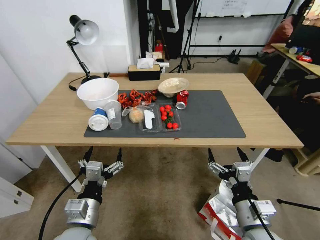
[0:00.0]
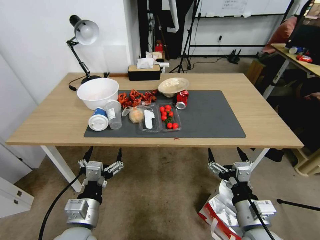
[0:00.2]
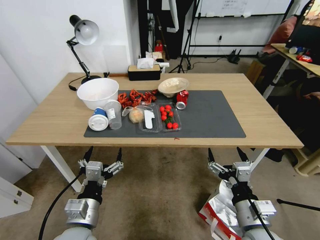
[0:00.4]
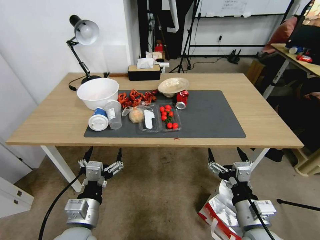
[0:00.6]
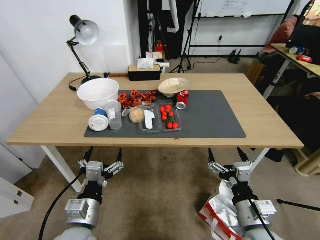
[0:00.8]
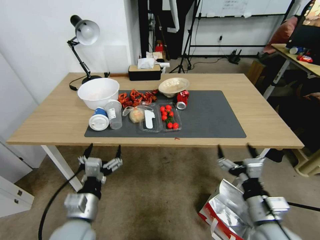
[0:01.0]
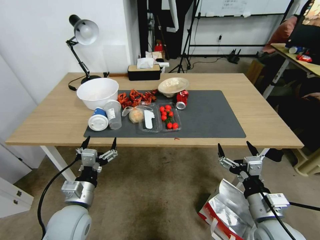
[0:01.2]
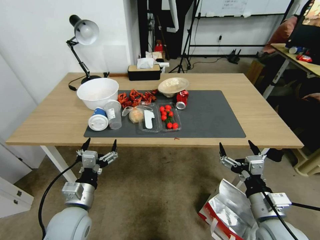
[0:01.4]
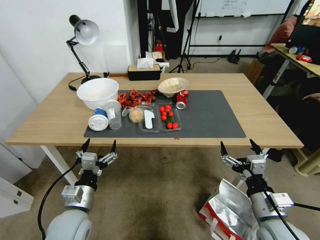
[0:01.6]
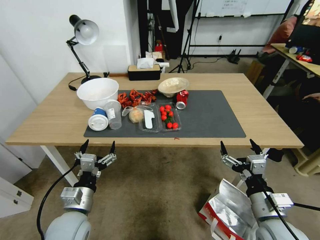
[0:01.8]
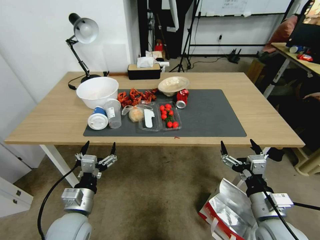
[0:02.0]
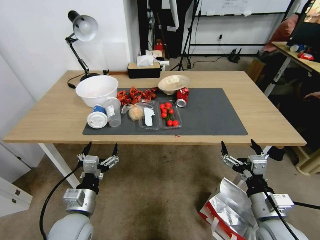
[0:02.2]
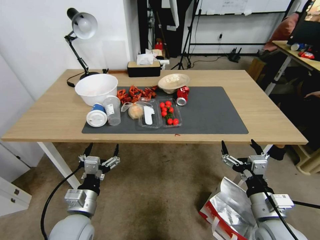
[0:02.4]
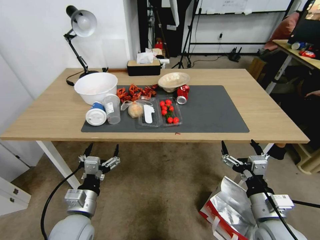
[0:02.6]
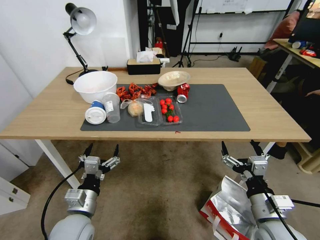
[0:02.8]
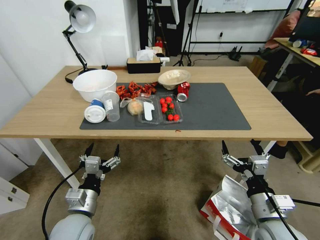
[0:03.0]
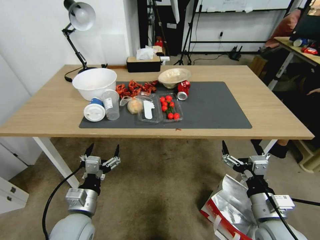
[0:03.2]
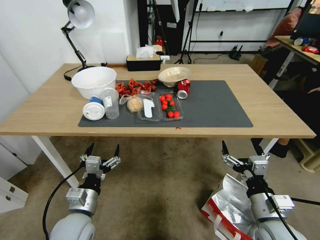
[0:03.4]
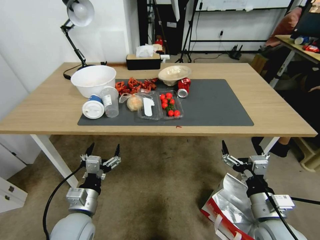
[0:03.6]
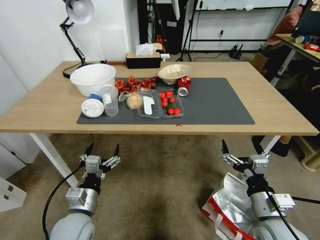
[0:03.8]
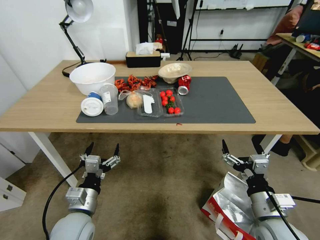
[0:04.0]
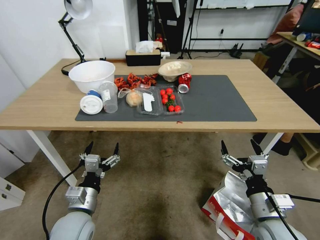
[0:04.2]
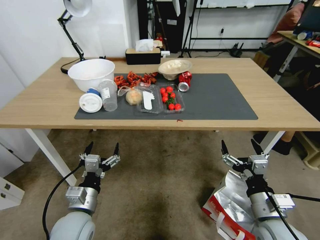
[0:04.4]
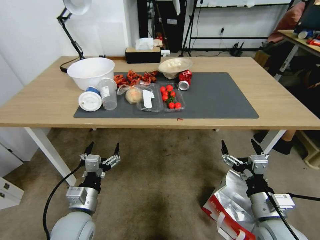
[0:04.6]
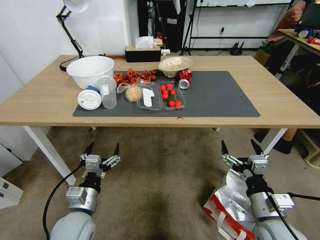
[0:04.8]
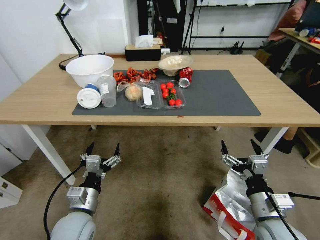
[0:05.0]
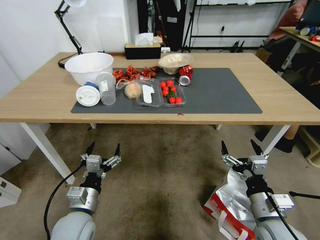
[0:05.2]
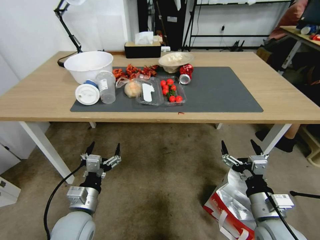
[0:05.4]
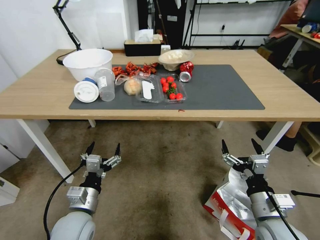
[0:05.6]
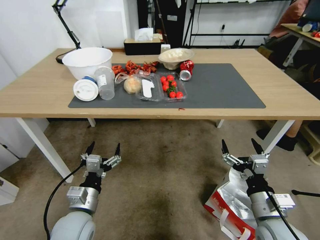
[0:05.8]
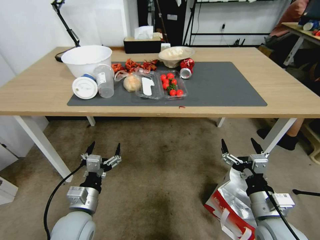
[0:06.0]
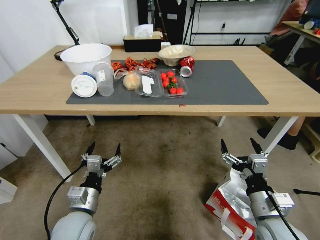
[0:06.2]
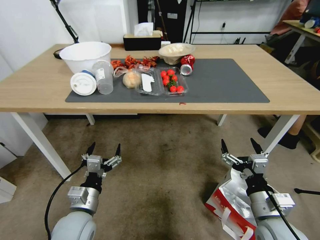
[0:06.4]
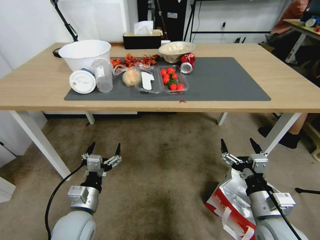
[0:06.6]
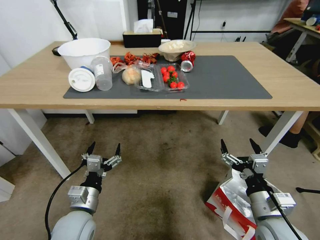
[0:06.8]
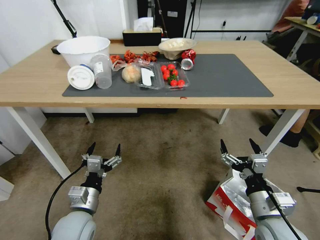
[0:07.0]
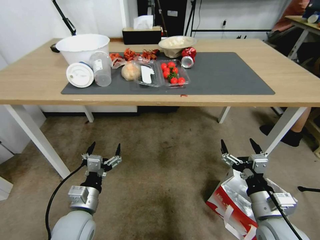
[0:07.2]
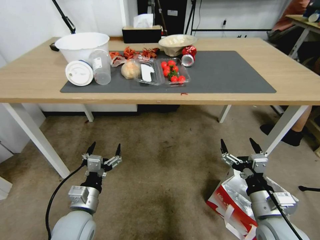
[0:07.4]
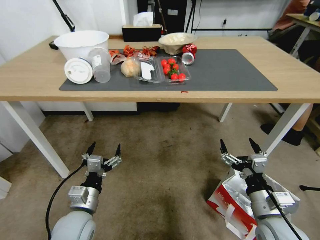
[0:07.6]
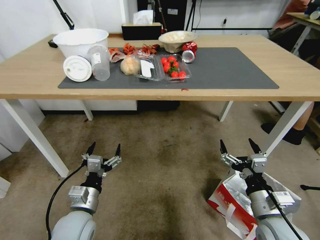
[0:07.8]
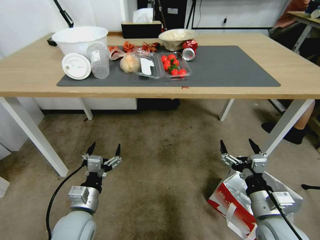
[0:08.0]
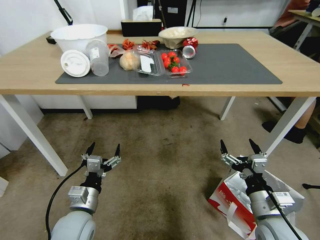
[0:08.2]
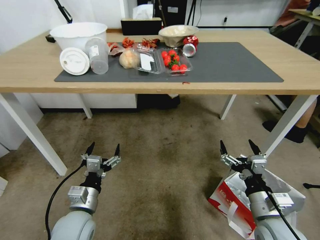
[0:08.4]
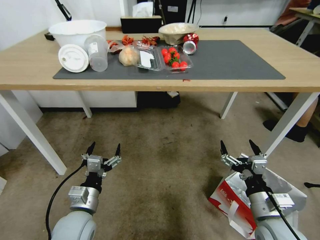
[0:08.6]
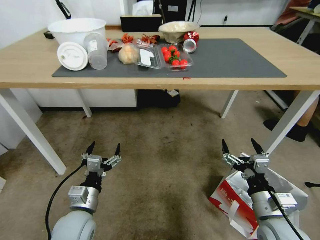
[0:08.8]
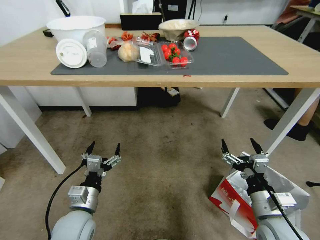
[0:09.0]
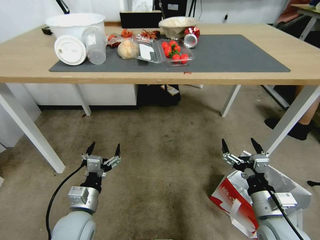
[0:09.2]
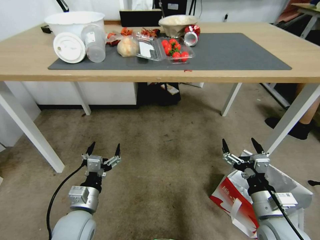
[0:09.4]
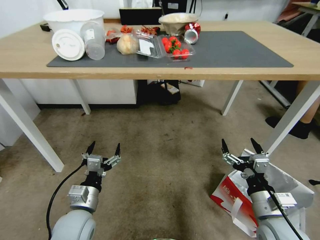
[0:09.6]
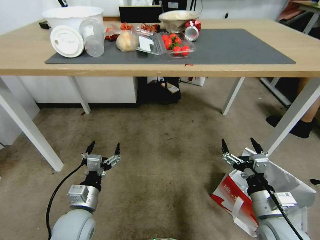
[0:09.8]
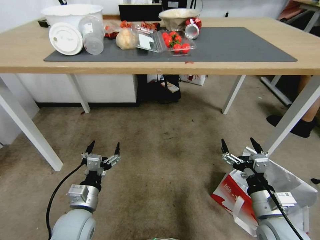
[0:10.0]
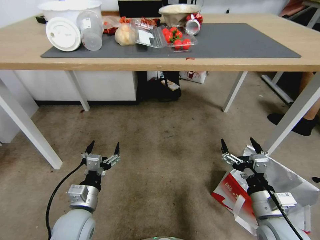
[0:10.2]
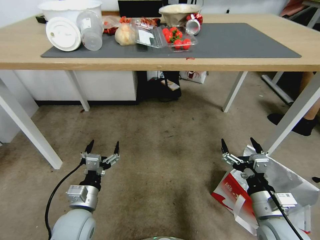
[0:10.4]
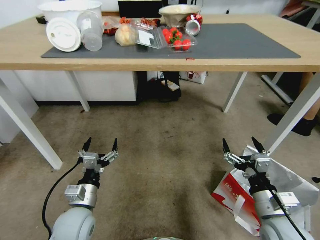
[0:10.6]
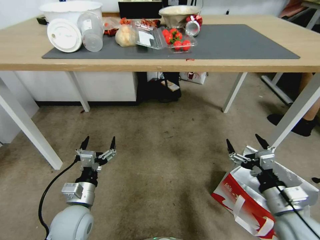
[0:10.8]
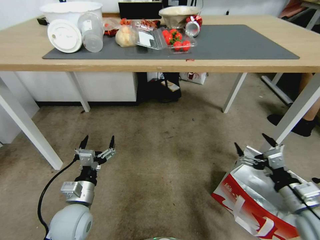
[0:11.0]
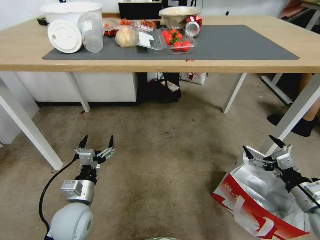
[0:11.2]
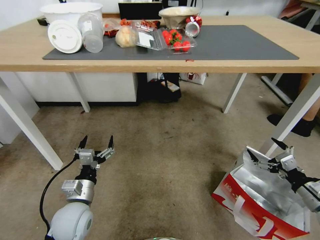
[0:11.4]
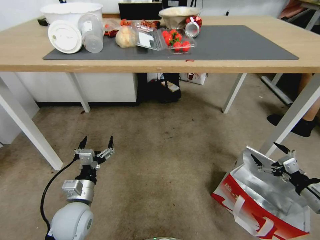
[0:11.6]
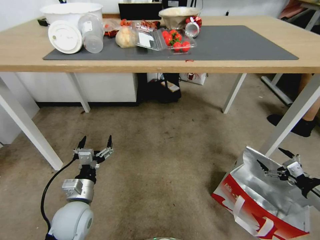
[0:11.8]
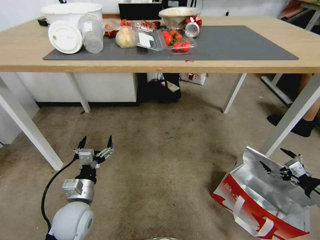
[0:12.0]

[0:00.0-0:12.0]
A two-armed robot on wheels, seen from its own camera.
Task of the whole recording: Pick up the food delivery bag from the floor and place it on the table.
0:10.4 to 0:12.0: The right gripper heads to the right, covering some 25 cm.

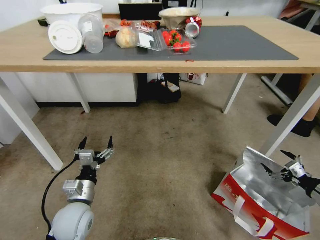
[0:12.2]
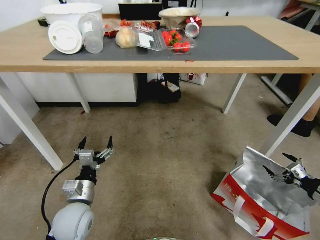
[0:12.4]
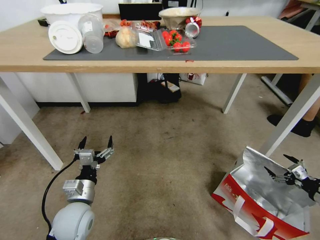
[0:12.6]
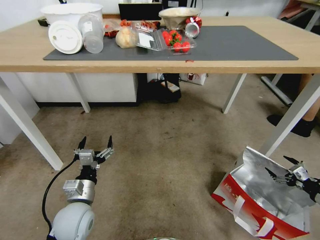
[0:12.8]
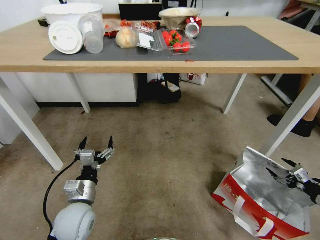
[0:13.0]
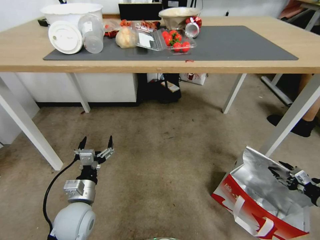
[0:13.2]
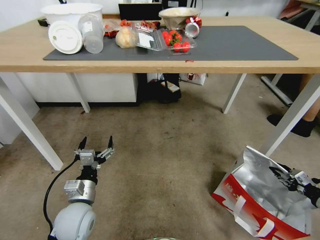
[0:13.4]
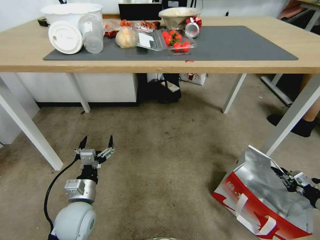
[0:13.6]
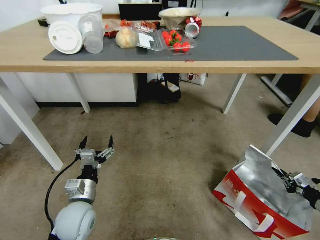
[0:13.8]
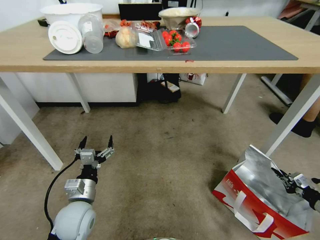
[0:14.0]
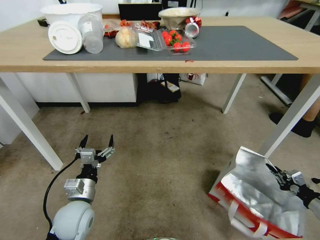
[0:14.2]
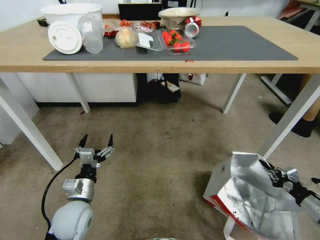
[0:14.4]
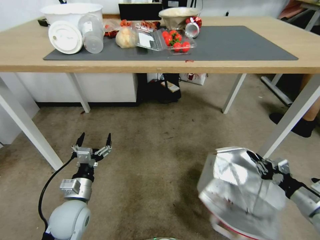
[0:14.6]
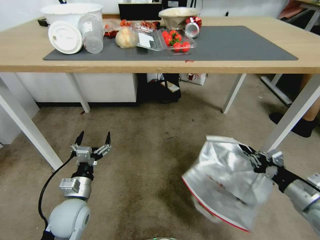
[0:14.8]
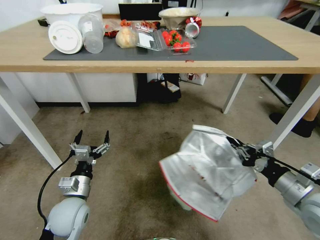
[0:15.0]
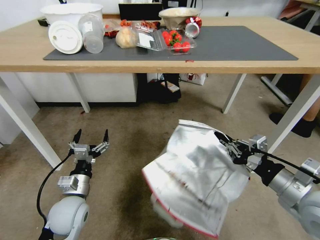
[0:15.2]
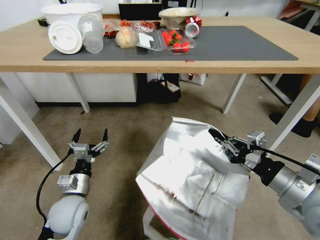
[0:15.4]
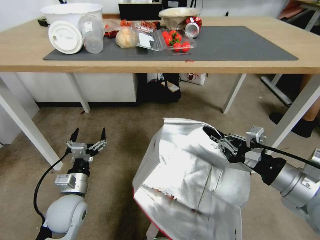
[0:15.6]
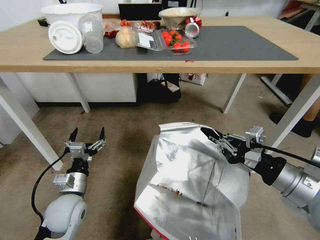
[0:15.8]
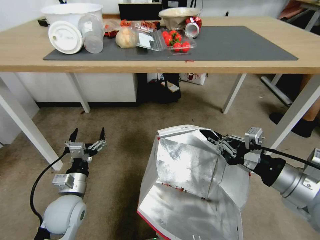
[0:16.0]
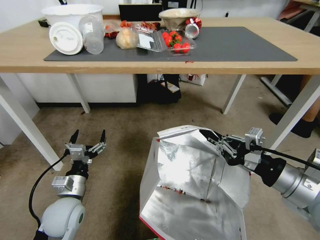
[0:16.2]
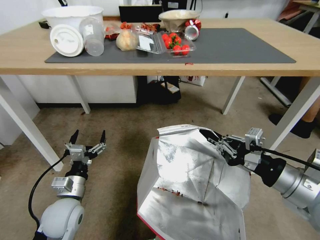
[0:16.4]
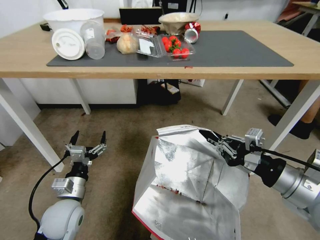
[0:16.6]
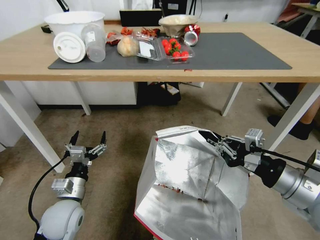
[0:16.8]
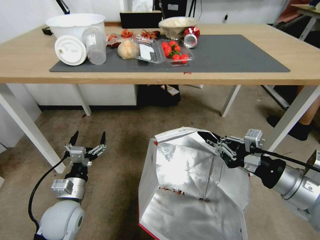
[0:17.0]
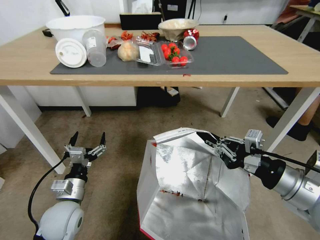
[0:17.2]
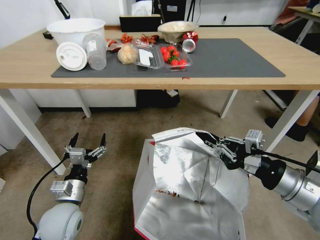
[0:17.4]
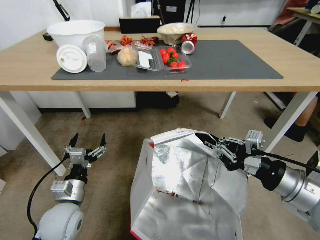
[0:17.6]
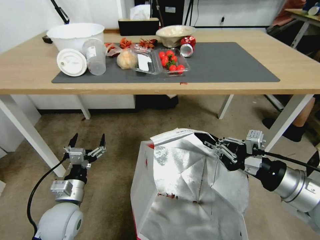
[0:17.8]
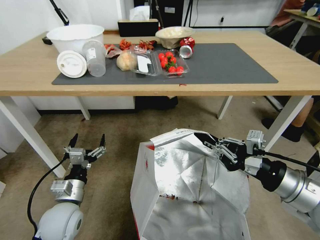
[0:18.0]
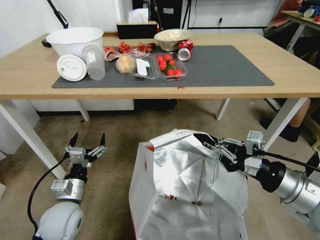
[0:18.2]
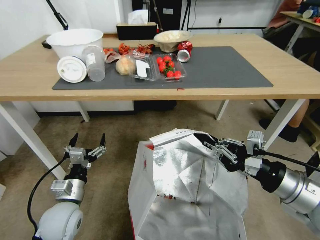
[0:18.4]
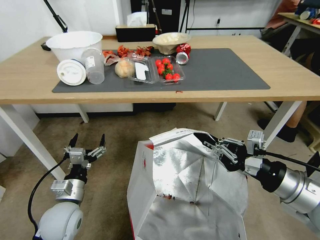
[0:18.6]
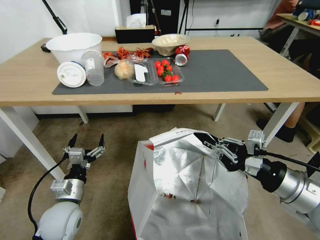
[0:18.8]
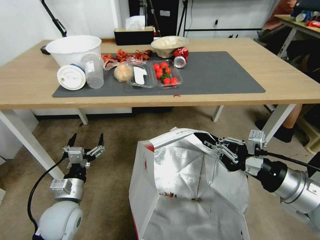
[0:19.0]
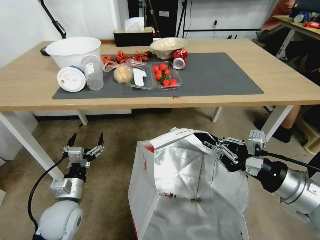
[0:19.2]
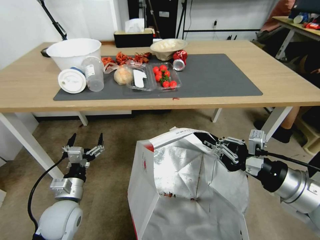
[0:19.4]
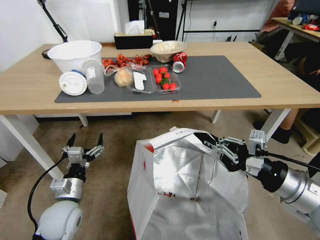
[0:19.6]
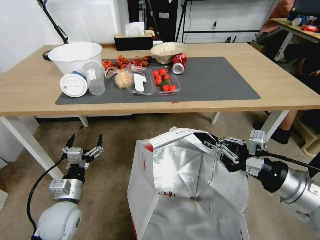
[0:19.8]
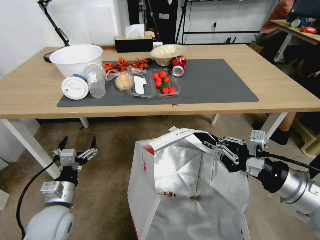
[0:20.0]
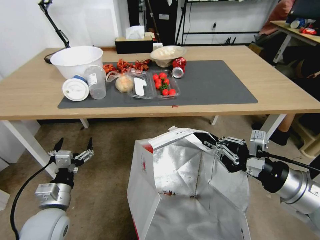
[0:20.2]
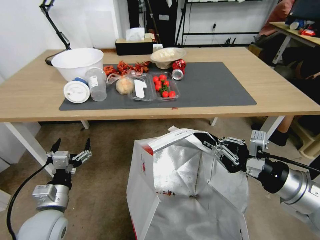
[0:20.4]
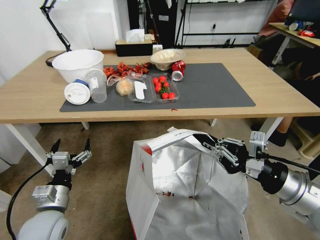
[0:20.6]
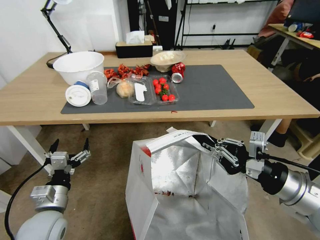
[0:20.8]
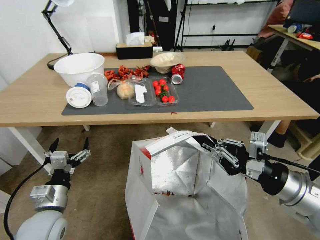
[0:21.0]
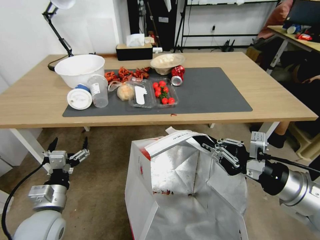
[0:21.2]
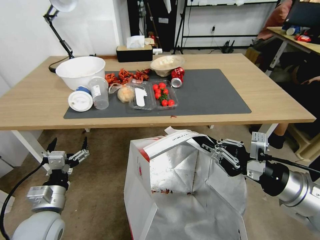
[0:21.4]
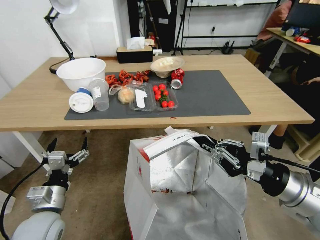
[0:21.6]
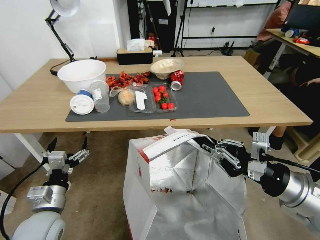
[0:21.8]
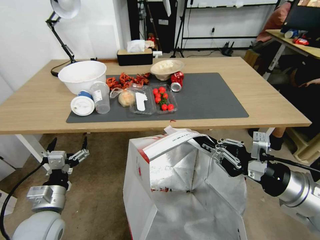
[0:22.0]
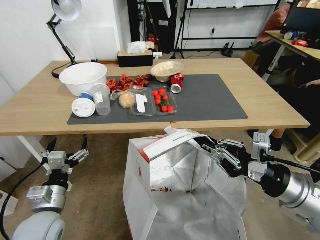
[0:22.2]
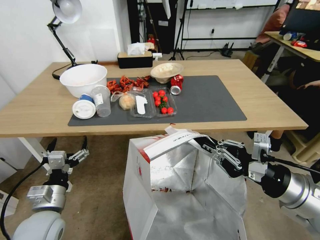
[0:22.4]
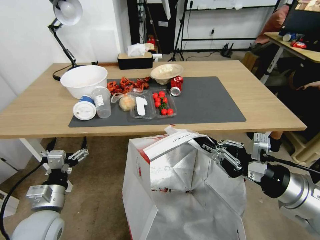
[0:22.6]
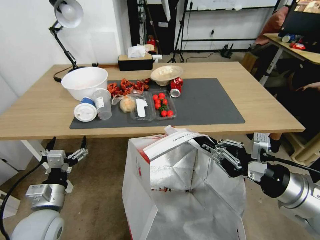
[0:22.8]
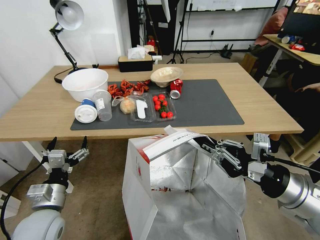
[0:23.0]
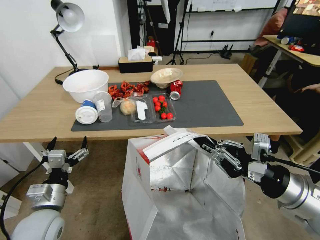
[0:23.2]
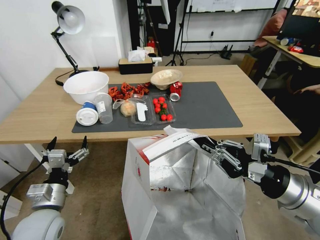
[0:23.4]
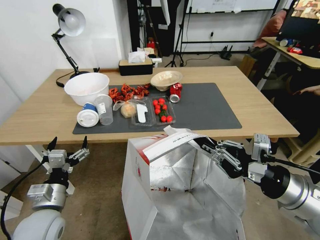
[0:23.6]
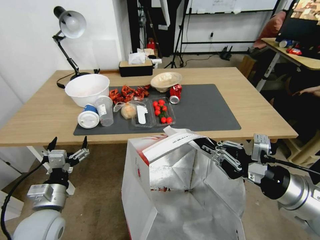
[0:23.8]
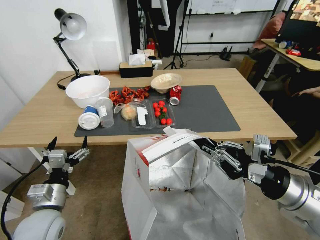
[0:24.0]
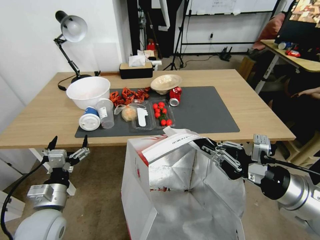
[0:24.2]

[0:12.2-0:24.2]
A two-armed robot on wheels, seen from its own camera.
Task of the whole recording: Pick up the food delivery bag from the floor and place it on the table.
0:12.2 to 0:13.8: The right gripper shifts by some 5 cm, and closes up.
0:13.8 to 0:15.2: The right gripper goes approximately 35 cm to the left and upward.
0:15.2 to 0:16.6: The right gripper shifts by approximately 5 cm.
